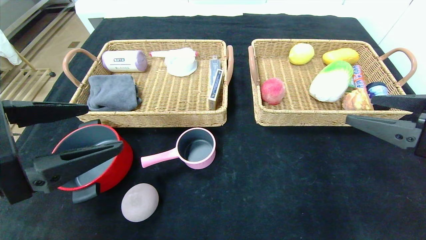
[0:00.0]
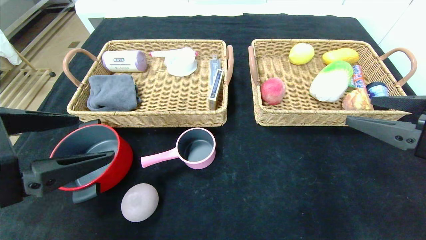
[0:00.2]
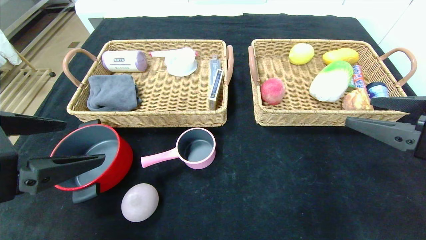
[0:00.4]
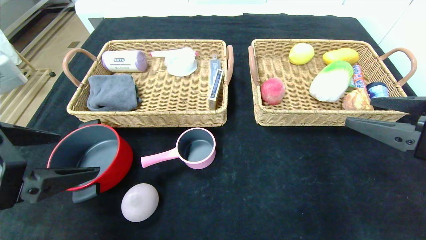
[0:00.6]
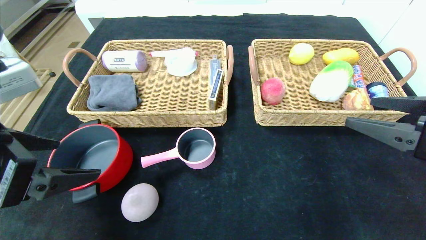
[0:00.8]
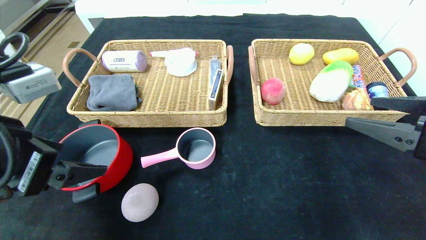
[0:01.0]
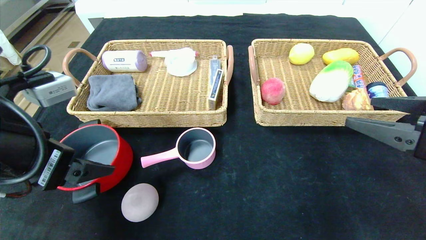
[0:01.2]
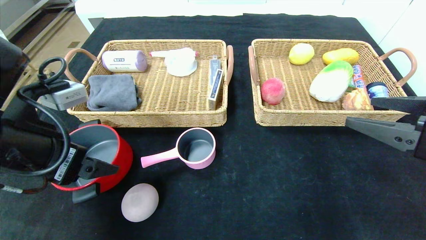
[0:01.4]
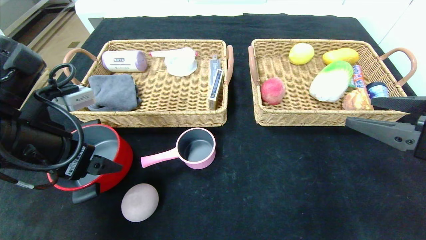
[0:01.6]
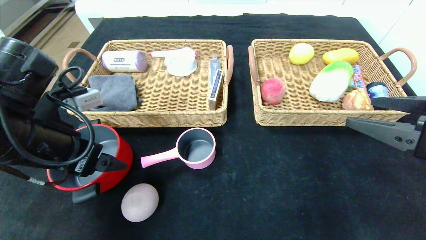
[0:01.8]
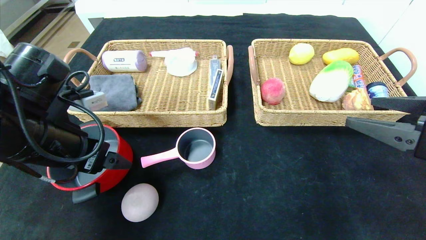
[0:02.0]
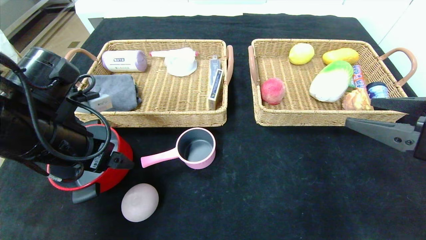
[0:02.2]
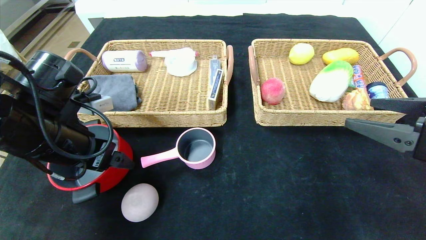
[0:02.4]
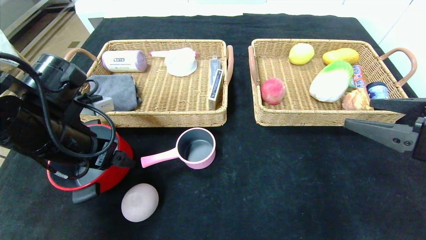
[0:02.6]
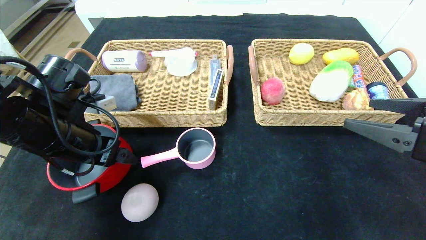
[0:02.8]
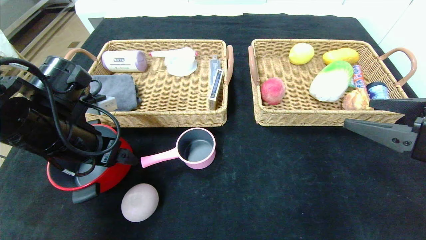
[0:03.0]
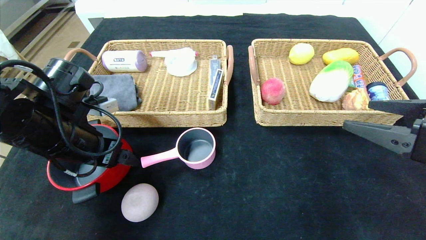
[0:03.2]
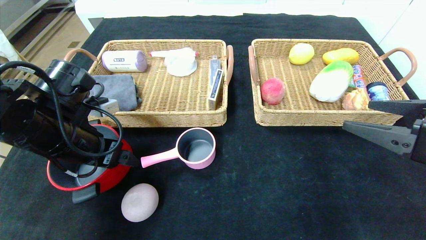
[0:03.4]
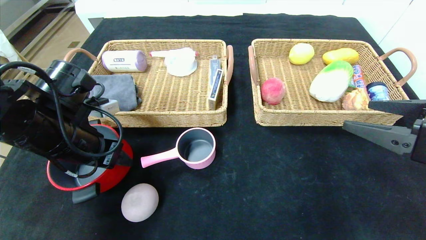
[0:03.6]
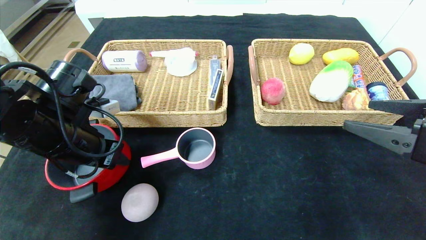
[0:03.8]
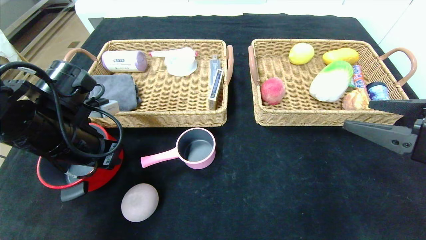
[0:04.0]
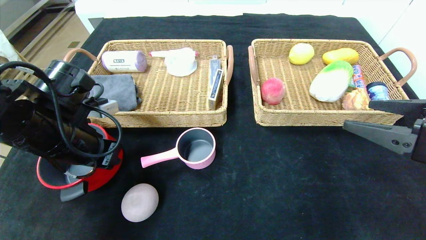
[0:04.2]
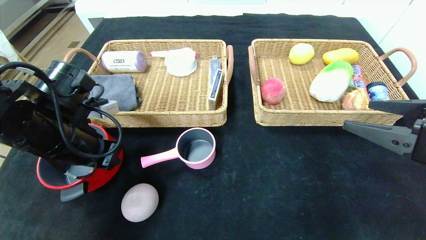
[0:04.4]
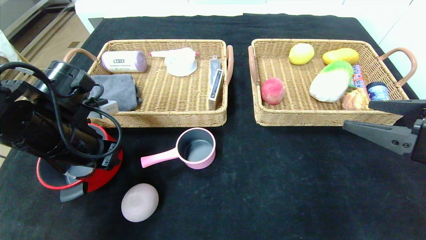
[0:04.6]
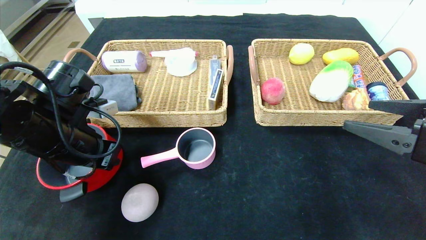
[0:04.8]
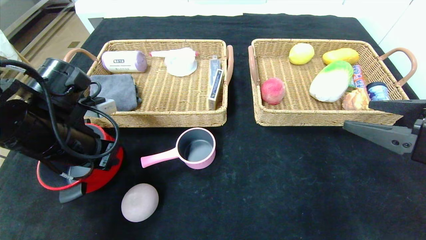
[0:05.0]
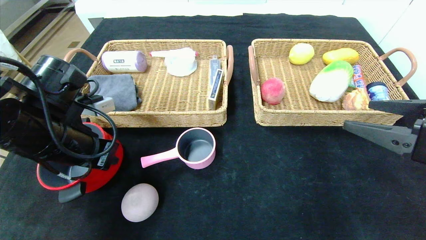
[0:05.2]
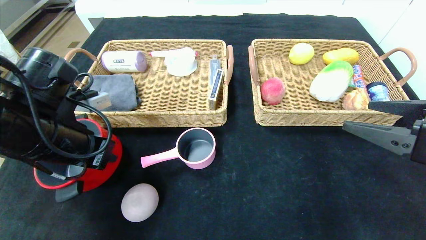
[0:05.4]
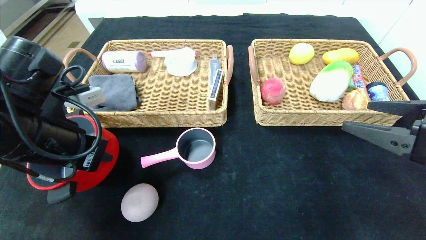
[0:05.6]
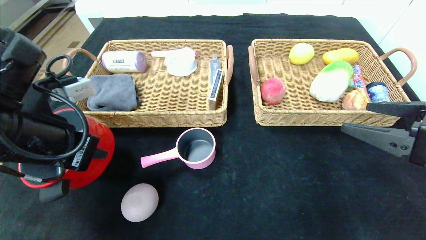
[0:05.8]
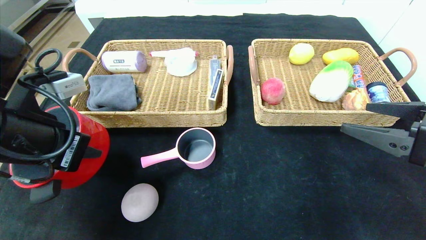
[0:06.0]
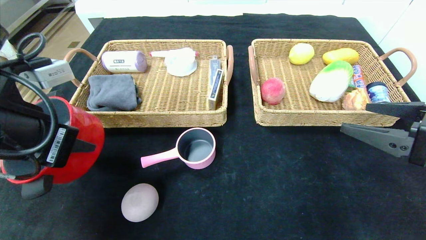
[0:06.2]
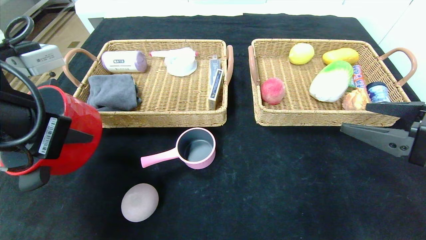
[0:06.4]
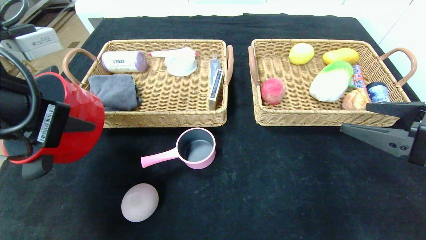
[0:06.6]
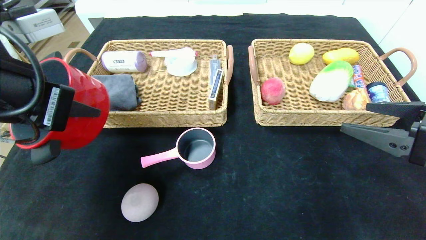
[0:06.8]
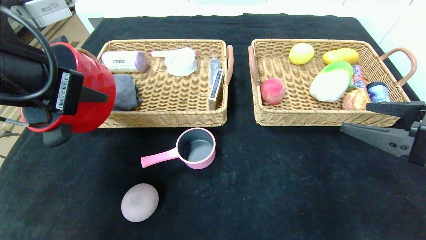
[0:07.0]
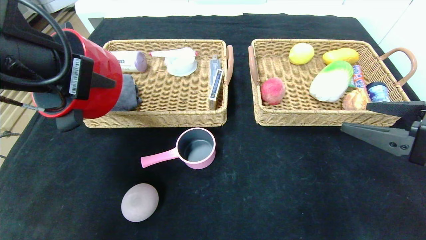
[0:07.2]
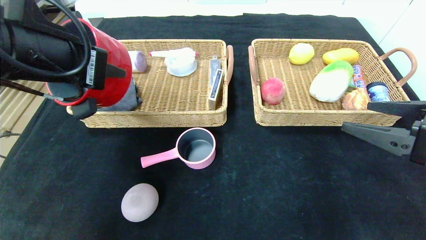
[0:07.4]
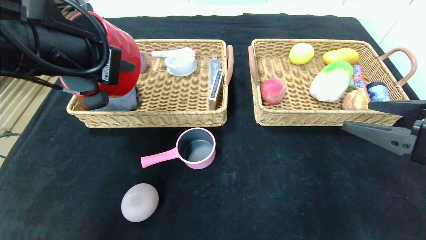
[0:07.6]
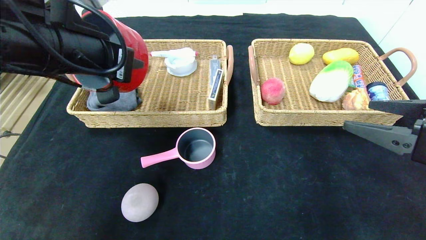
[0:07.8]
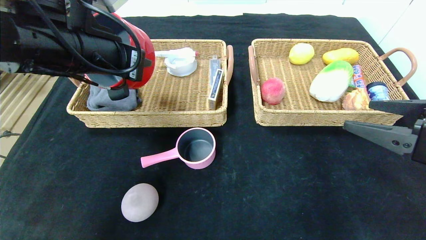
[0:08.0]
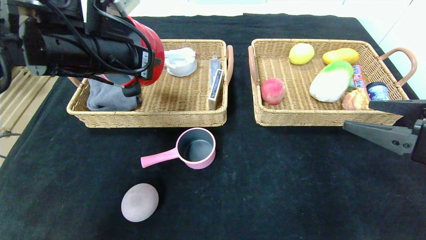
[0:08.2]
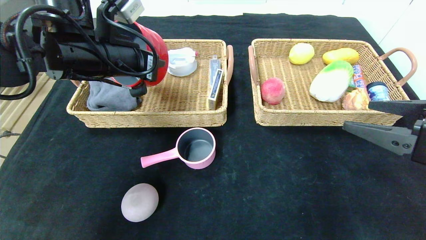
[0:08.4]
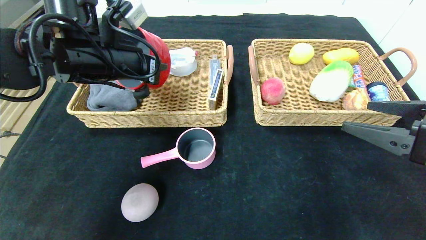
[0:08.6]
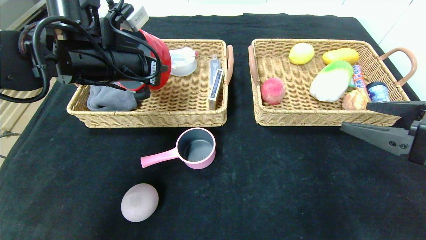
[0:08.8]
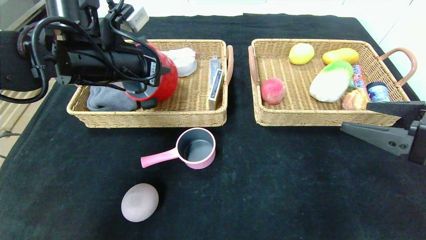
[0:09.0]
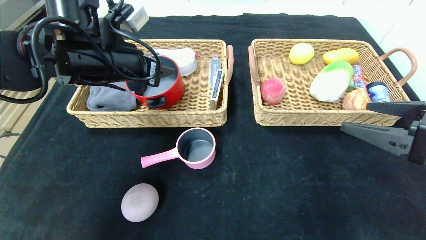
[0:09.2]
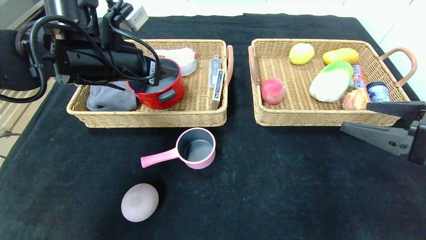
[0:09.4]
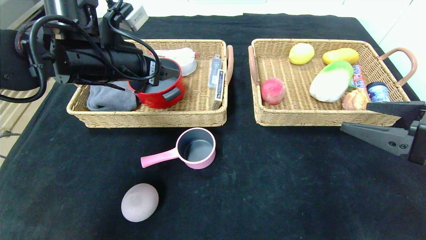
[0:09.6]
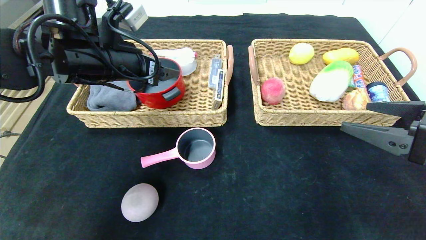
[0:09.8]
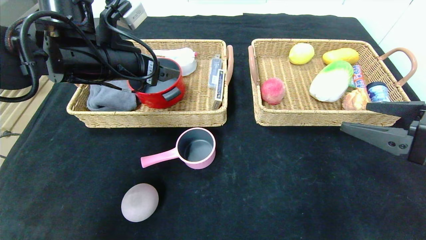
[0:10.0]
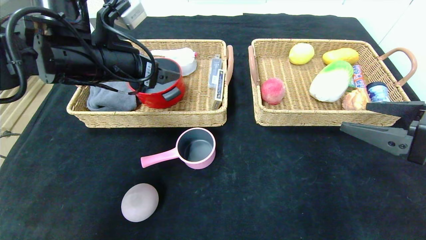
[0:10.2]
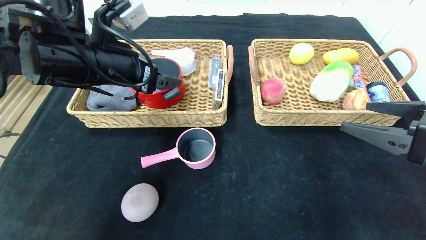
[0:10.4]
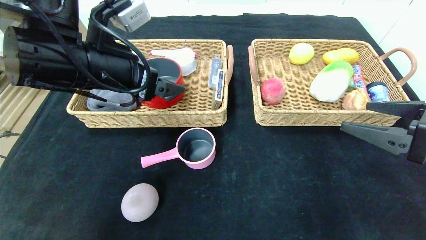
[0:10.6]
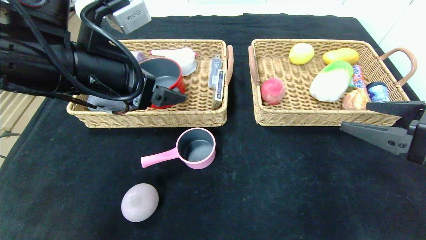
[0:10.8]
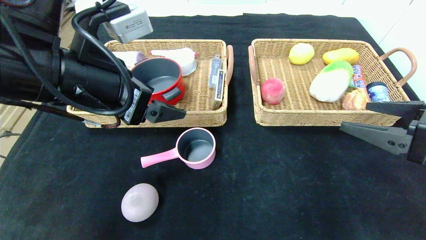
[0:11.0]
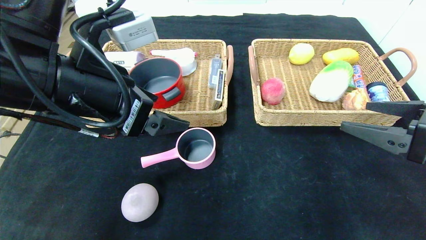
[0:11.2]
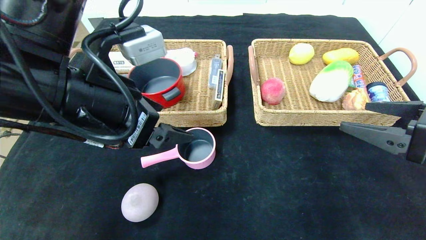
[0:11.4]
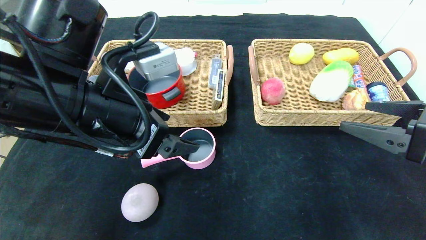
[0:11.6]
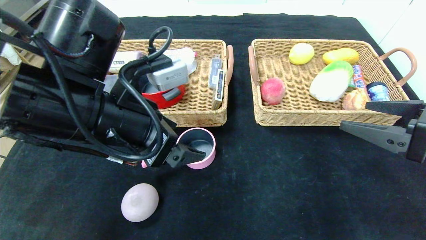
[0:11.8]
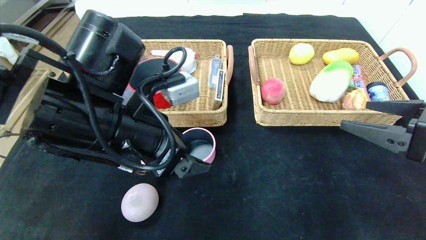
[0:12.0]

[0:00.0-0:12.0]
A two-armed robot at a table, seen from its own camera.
Step, 0:00.0 to 0:09.6: Grasp the red pot and put it in the left basket.
0:00.0 to 0:01.6: The left gripper travels forward by approximately 10 cm.
0:01.6 to 0:03.0: The left gripper heads forward, covering roughly 5 cm.
0:03.0 to 0:04.4: The left gripper closes up.
0:04.4 to 0:06.0: The left gripper goes roughly 10 cm backward and upward.
0:06.0 to 0:07.6: The left gripper shifts approximately 10 cm upward and forward.
0:07.6 to 0:09.0: The left gripper is displaced forward by some 10 cm.
0:09.0 to 0:10.4: The left gripper opens up.
0:10.4 to 0:12.0: The left gripper moves backward, to the right and downward, roughly 10 cm.

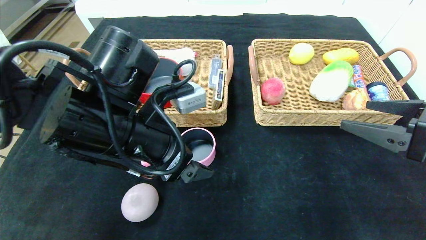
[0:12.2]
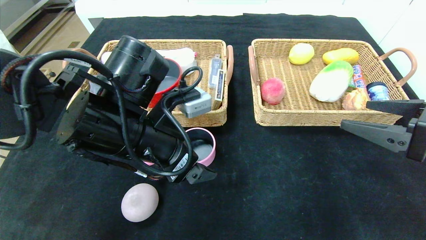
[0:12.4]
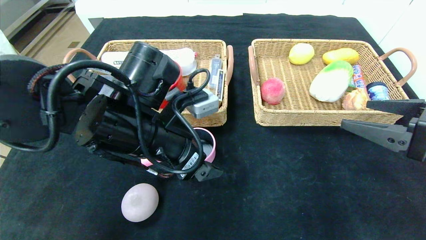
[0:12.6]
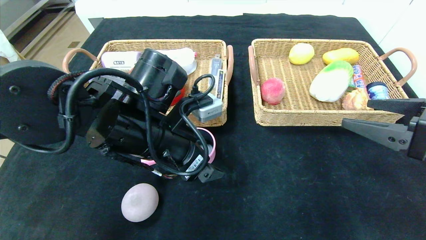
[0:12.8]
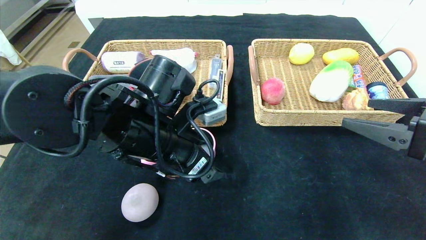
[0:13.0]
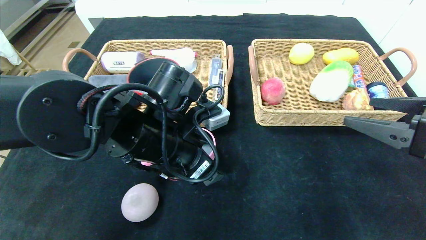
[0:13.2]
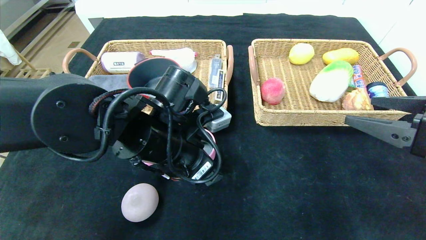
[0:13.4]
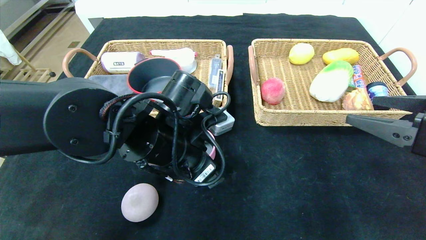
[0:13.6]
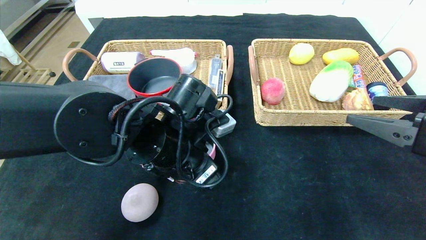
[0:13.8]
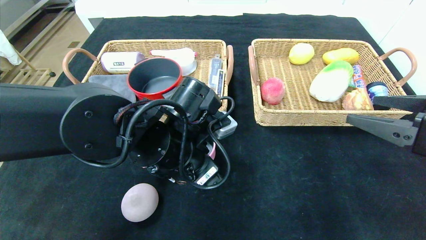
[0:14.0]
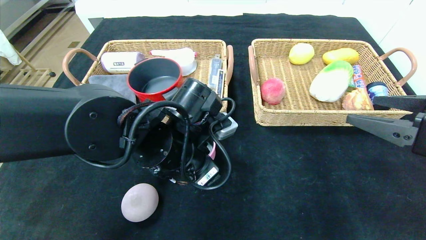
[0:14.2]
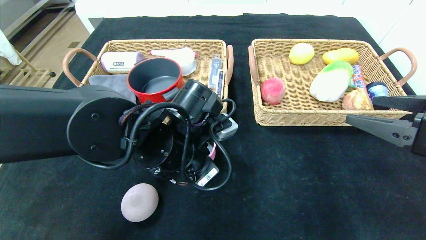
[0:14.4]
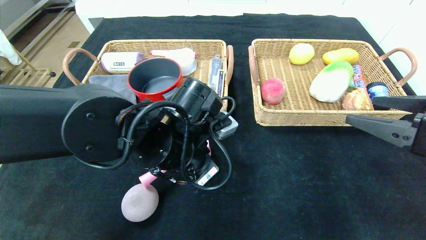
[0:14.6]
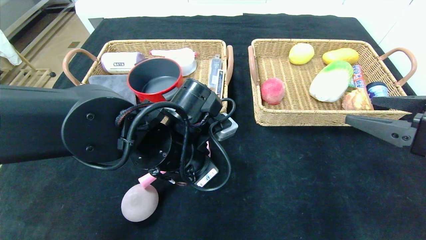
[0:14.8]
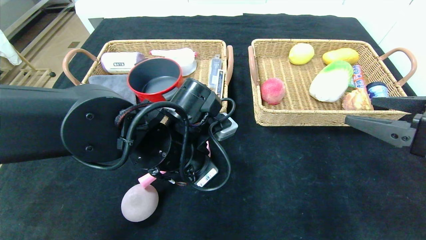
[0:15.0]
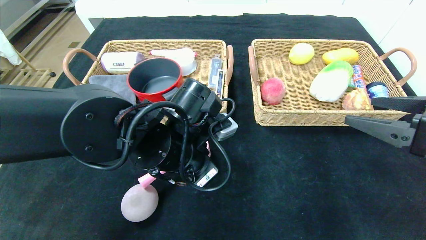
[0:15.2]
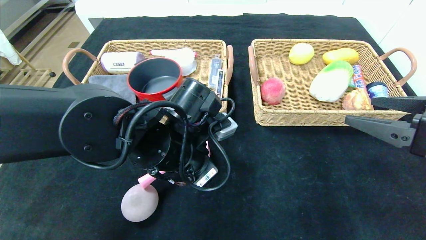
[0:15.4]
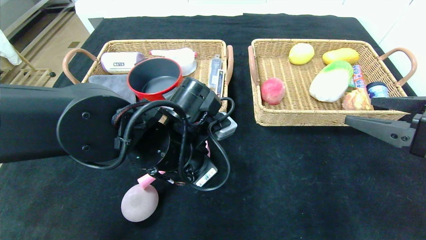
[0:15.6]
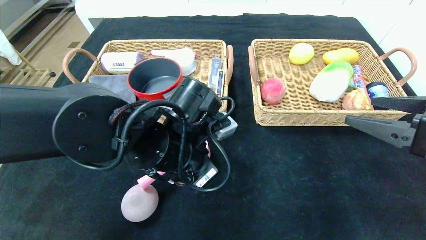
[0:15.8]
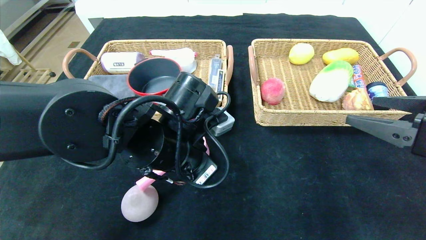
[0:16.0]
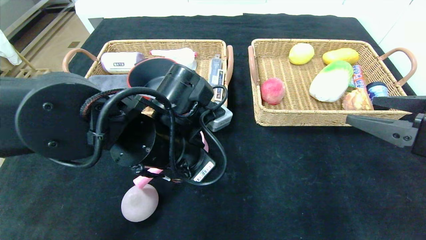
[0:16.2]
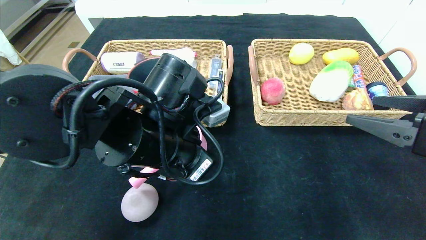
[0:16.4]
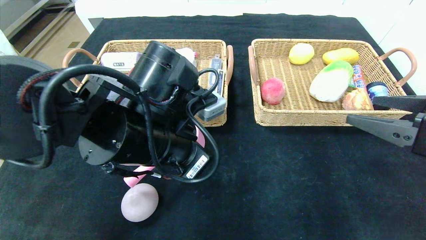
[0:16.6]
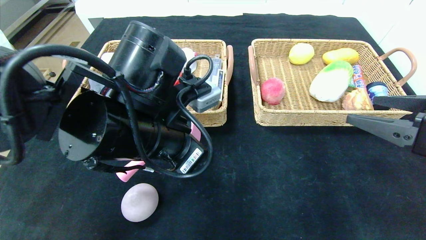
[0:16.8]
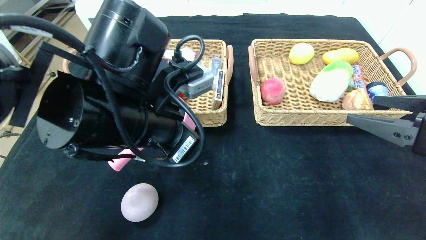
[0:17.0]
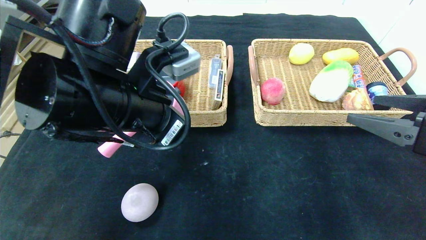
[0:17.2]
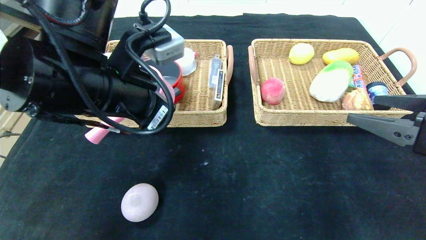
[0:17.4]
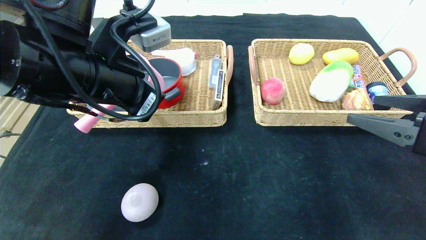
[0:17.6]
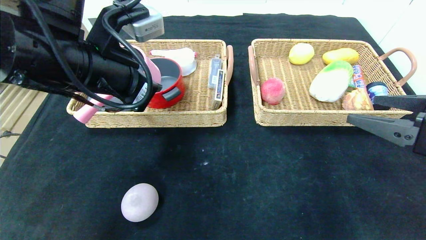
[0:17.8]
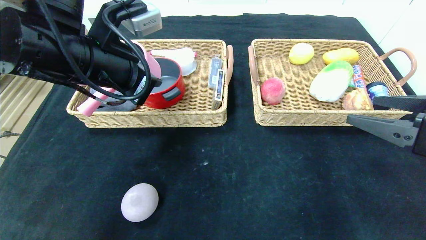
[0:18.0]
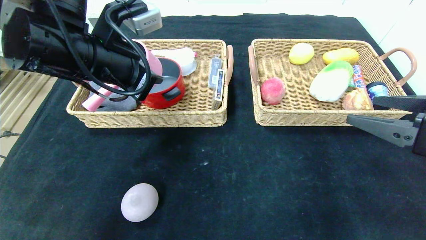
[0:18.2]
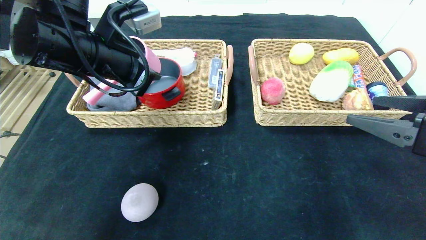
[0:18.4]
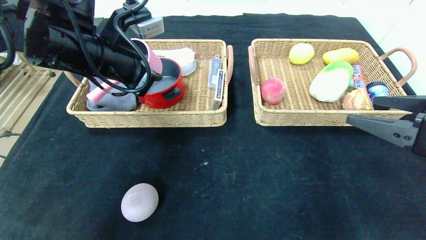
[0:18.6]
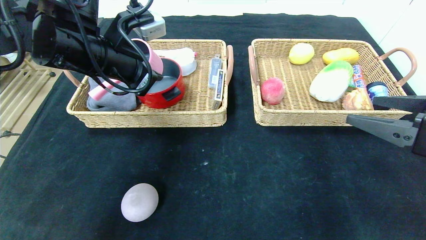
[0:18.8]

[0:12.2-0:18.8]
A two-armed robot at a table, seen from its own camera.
0:12.2 to 0:13.8: The left gripper moves roughly 5 cm.
0:13.8 to 0:15.4: The left gripper closes up.
0:15.4 to 0:17.2: The left gripper shifts roughly 10 cm upward and to the left.
0:17.2 to 0:18.8: The left gripper goes about 10 cm forward and to the left.
